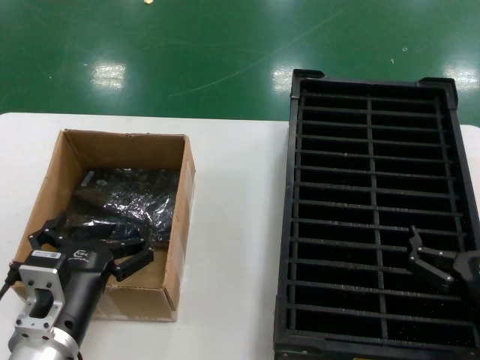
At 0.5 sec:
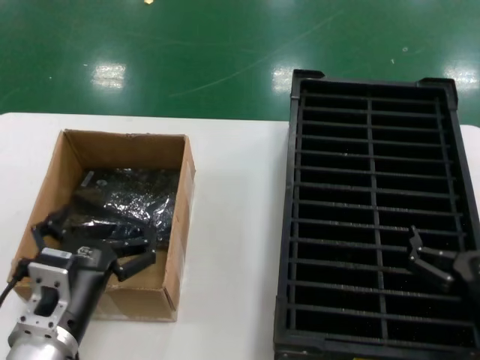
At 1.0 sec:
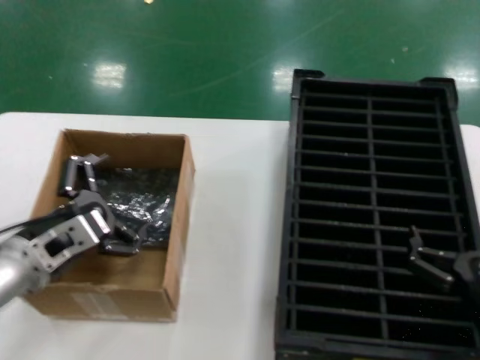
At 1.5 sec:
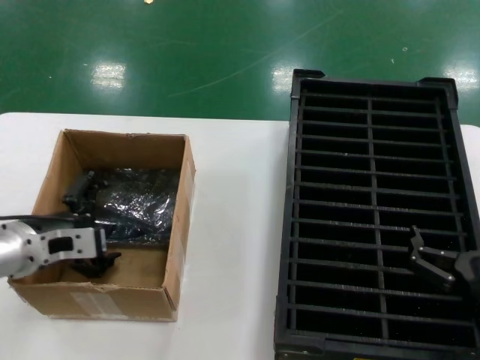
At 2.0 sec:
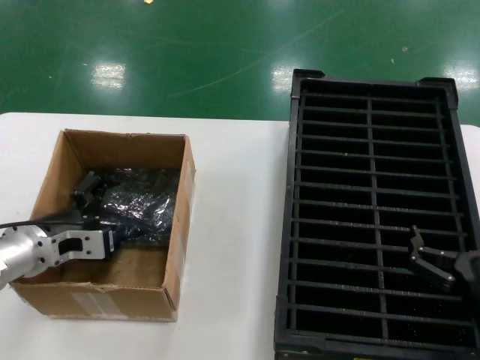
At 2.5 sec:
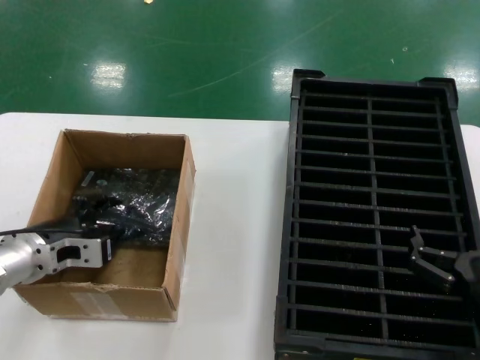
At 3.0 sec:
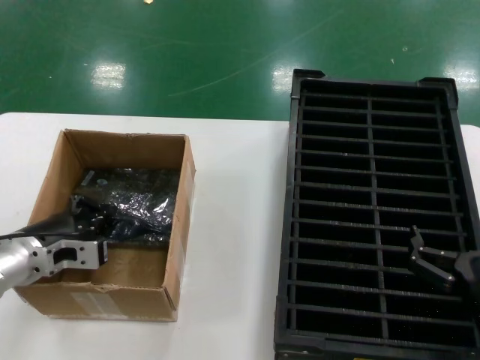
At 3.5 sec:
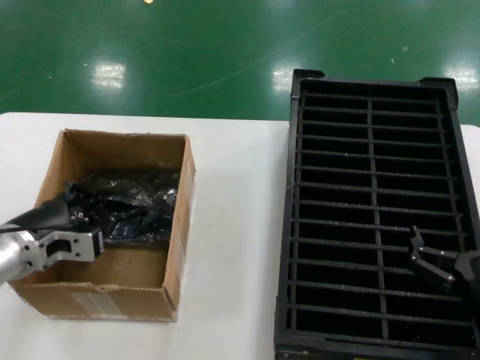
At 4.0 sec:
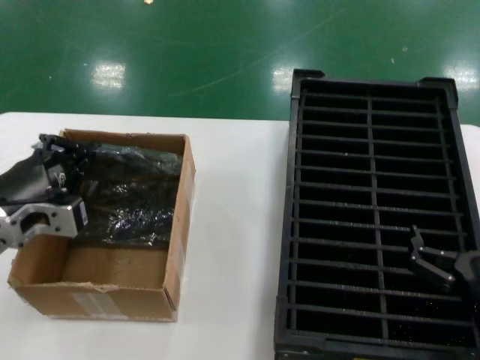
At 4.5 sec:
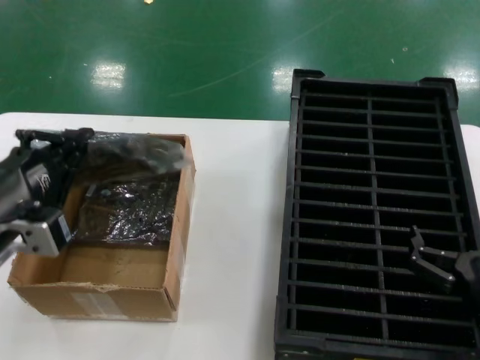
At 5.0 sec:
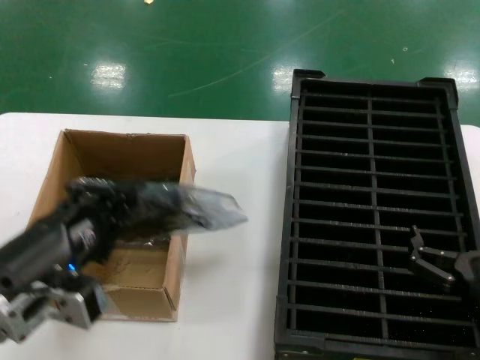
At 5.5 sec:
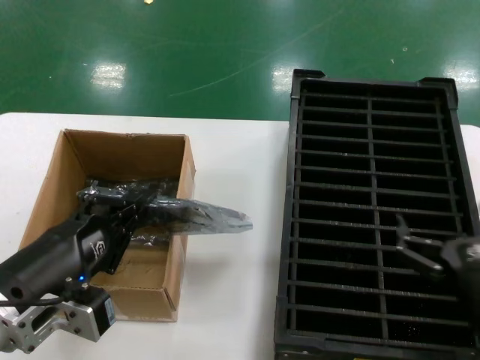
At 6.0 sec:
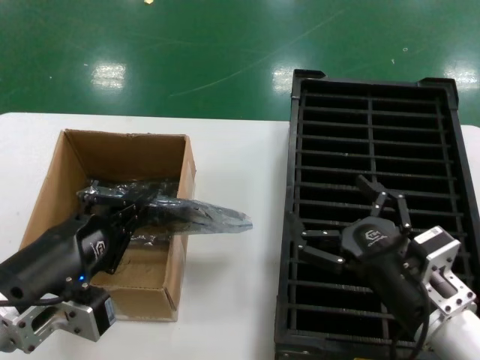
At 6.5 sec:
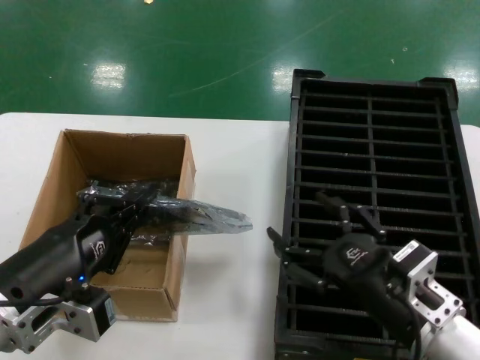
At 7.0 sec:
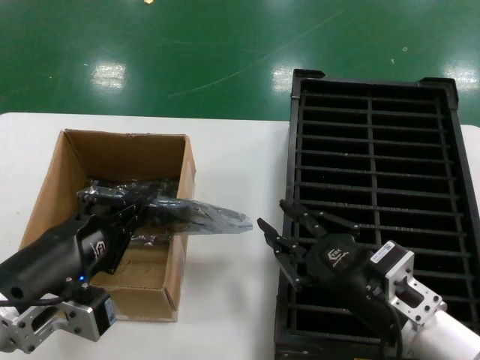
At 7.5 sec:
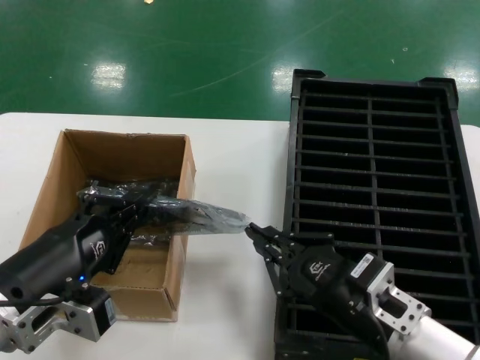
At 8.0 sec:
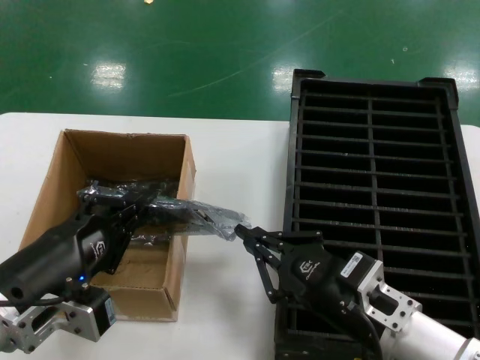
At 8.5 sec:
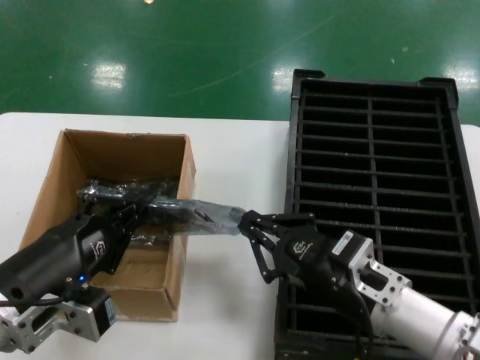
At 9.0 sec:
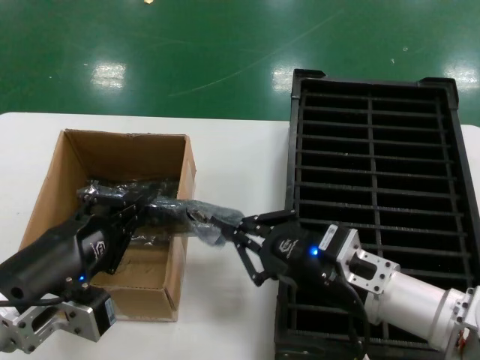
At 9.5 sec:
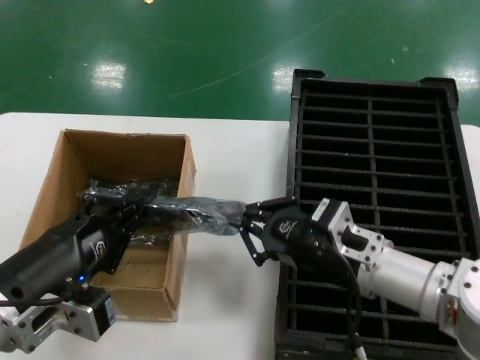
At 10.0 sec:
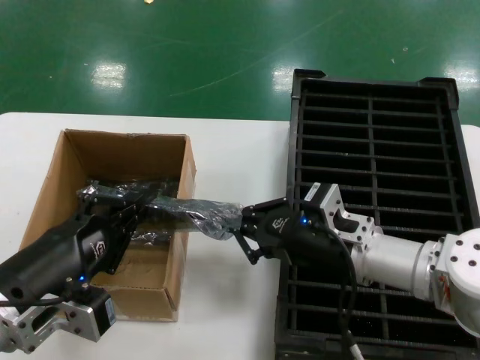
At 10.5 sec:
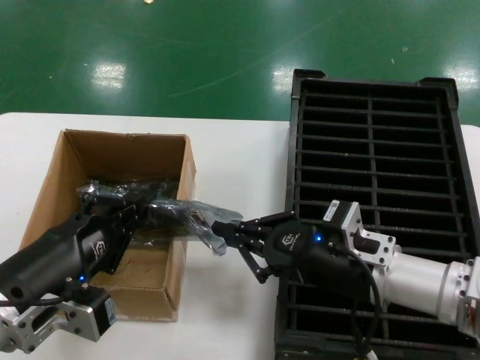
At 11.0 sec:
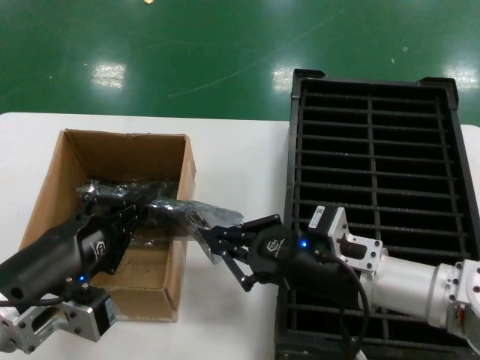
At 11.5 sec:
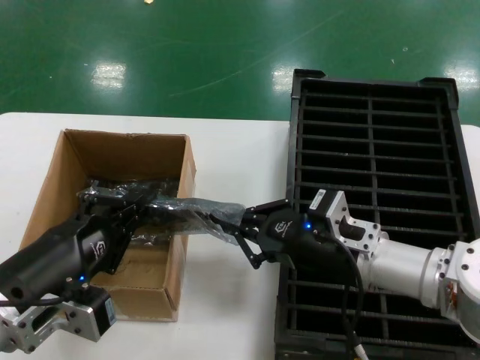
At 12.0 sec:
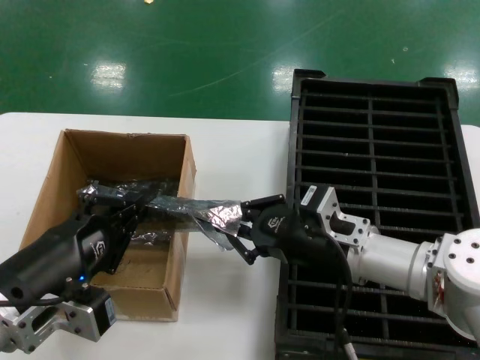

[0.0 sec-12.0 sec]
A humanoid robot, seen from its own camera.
Task of the whole recording: take out graphics card from box remove packaging put into black container.
Step, 0.0 sec to 3.0 sec: Grasp the bag.
Step, 3.5 sec to 5.0 sec: Lift the bag.
0.0 sec to 2.0 sec: The left hand goes some 20 cm forward and to the left.
2.0 sec to 4.0 sec: The left hand heads upward and backward, covering roughly 10 cm.
4.0 sec to 6.0 sec: The right hand heads to the left, covering approximately 5 cm. Meanwhile the left hand moves backward and to the right, some 15 cm.
8.0 sec to 10.0 sec: The right hand moves forward, roughly 10 cm.
10.0 sec to 12.0 sec: The hands make only small movements.

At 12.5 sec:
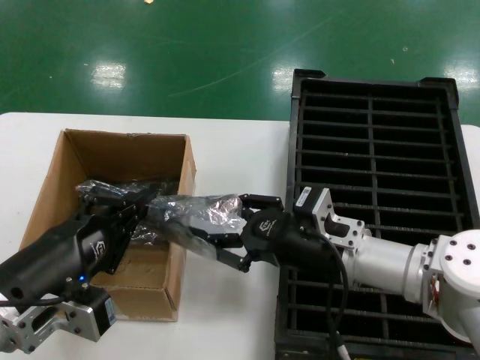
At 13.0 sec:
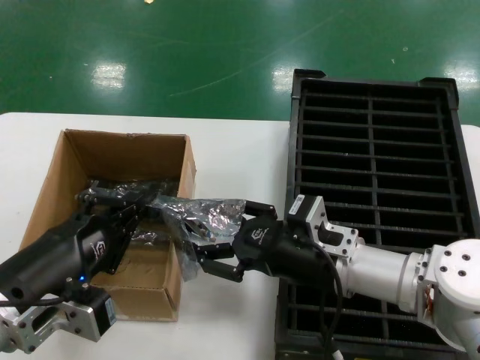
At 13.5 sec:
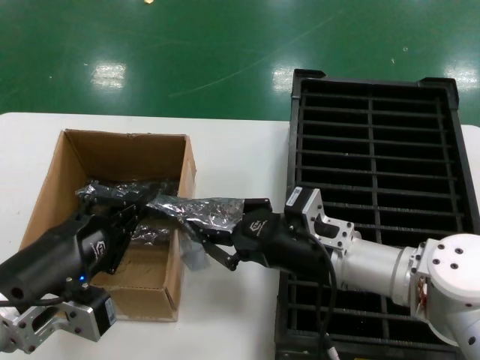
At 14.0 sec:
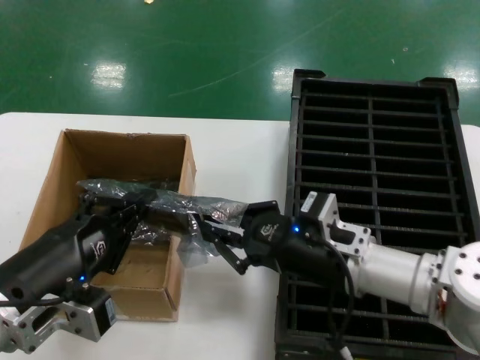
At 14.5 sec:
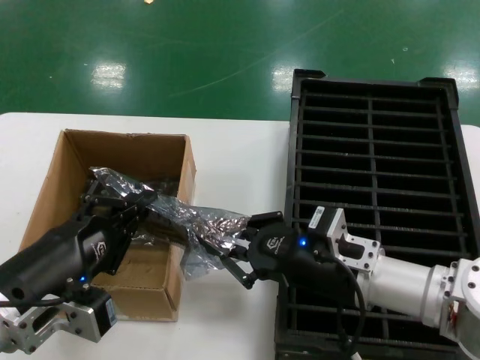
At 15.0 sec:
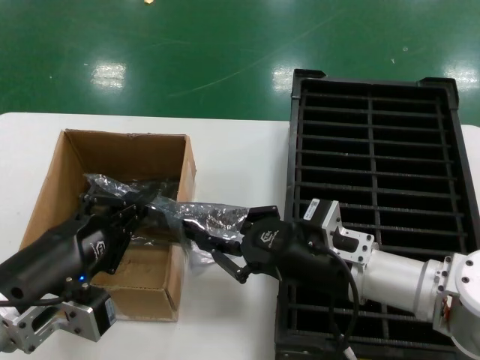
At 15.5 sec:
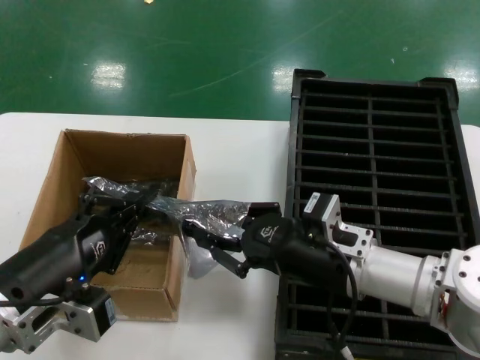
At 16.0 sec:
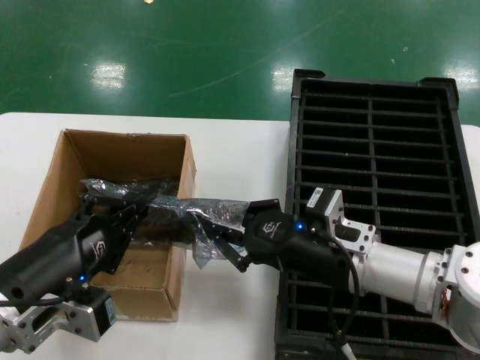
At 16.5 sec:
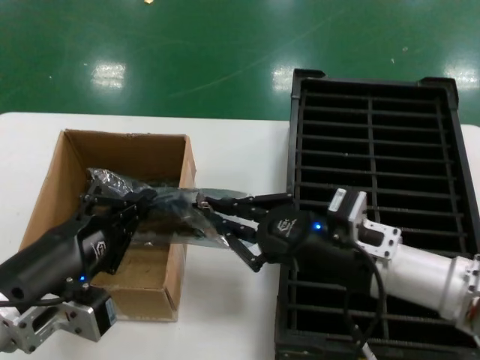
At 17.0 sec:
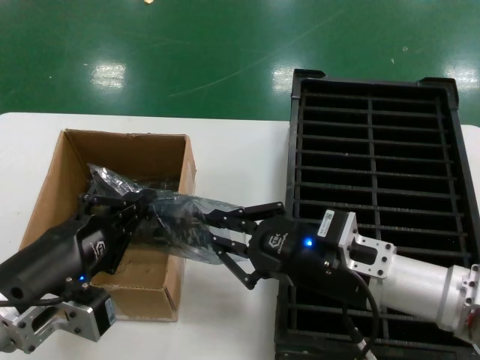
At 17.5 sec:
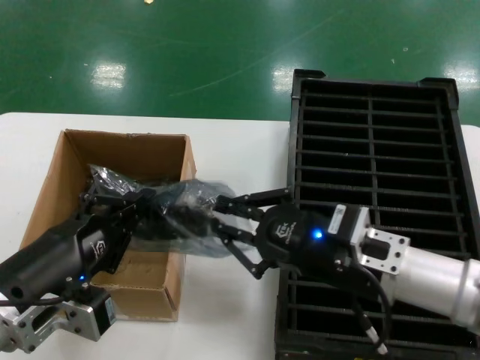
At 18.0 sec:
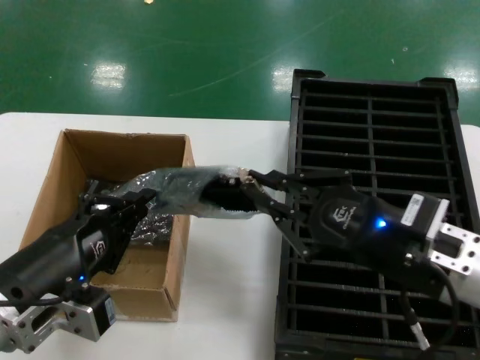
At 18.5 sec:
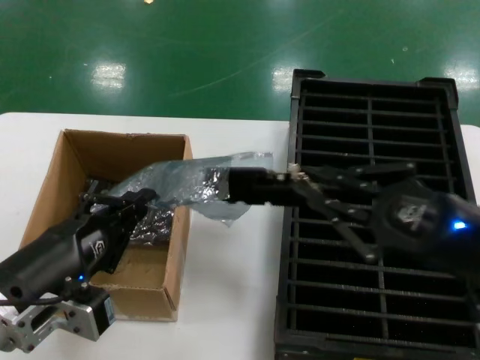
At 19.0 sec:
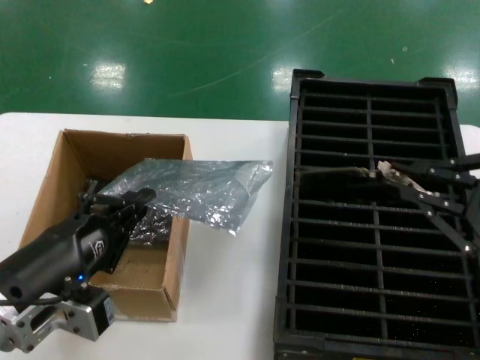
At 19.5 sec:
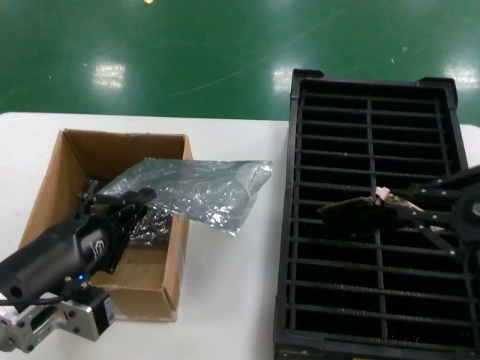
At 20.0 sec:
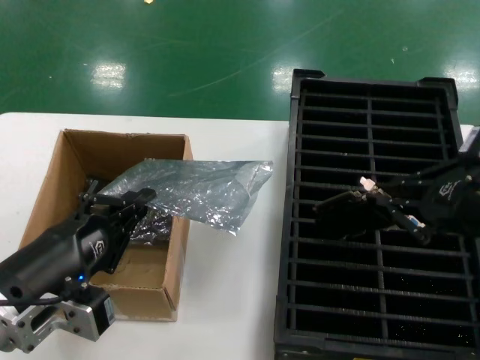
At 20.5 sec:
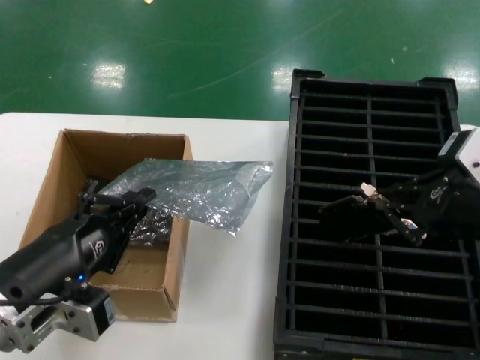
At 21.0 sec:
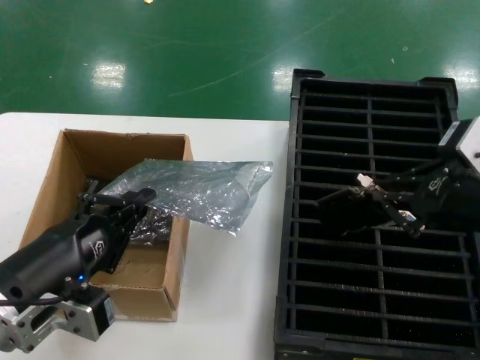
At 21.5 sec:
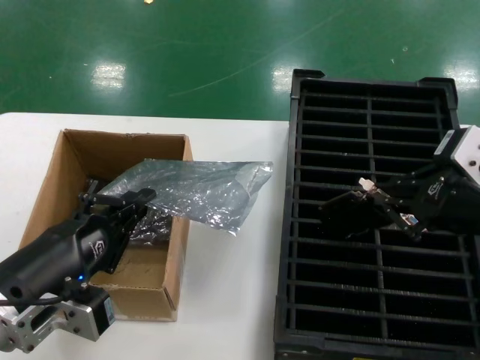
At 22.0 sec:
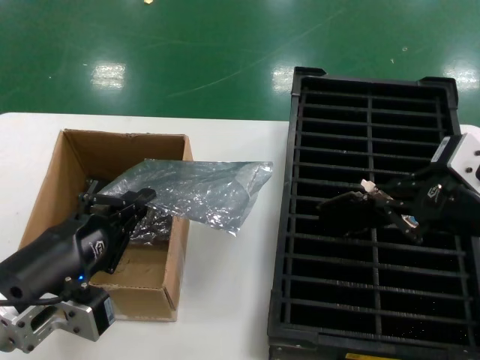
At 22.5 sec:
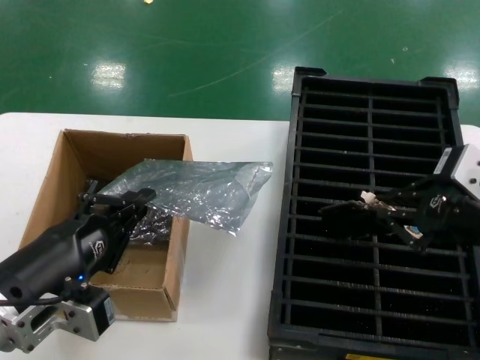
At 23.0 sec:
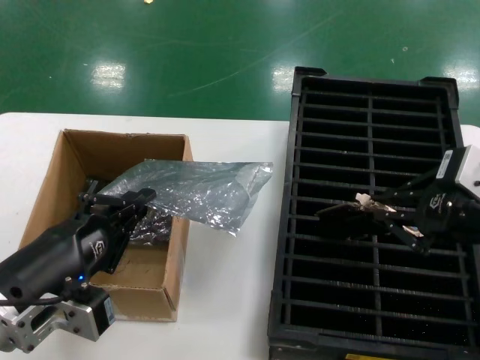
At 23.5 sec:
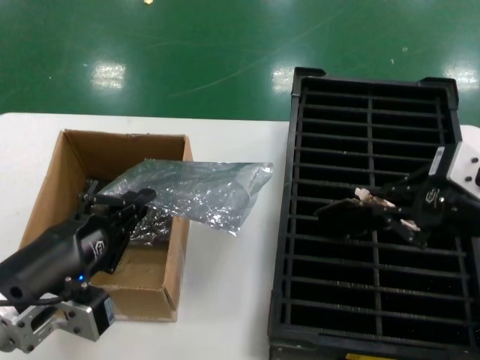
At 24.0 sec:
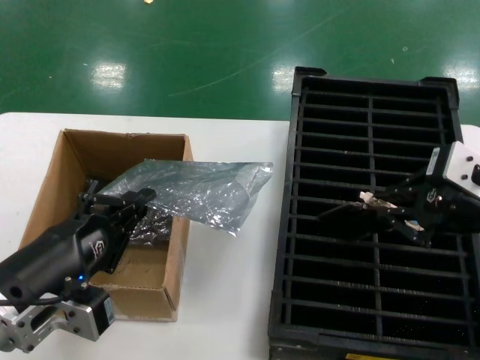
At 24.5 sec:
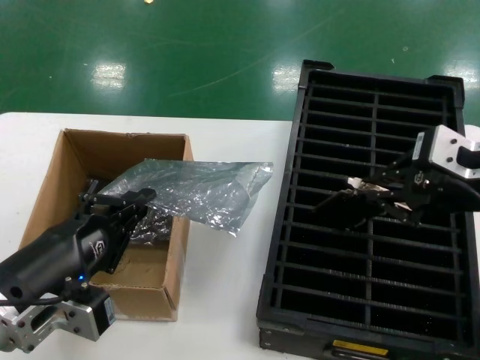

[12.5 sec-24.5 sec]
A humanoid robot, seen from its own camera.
Task of the whole recording: take out graphics card from box remove packaging put into black container.
Step, 12.5 sec to 18.5 sec: Take out the hard disk of the bag.
12.5 sec to 16.5 sec: The hands stay close to where they were, moving slightly.
16.5 sec to 18.5 sec: The right hand shifts some 15 cm to the right, backward and upward.
18.5 sec to 20.5 sec: The right hand shifts some 10 cm upward, and moves about 5 cm to the right and comes back.
20.5 sec to 22.5 sec: The hands move only a little.
22.5 sec to 24.5 sec: The right hand goes roughly 5 cm forward.

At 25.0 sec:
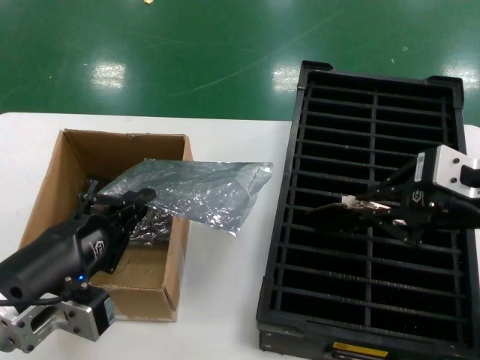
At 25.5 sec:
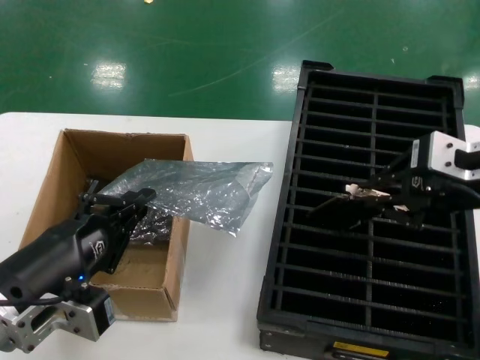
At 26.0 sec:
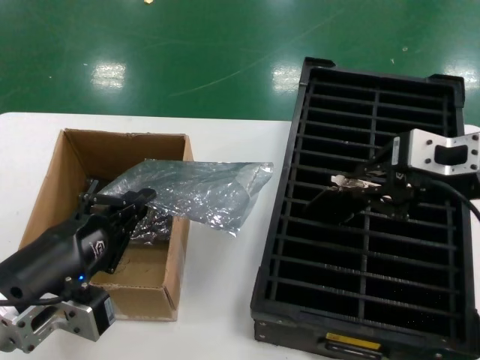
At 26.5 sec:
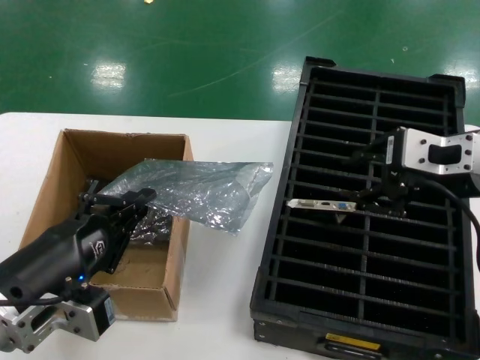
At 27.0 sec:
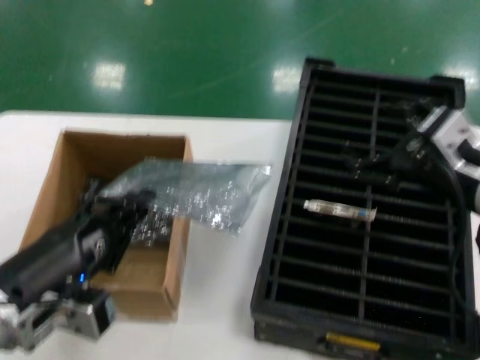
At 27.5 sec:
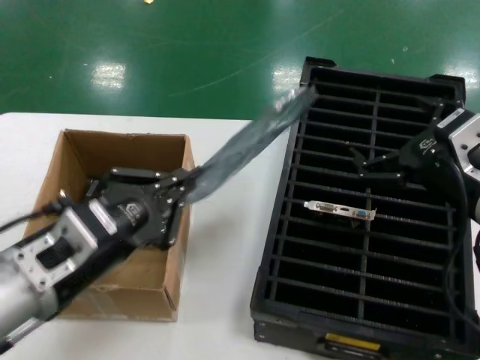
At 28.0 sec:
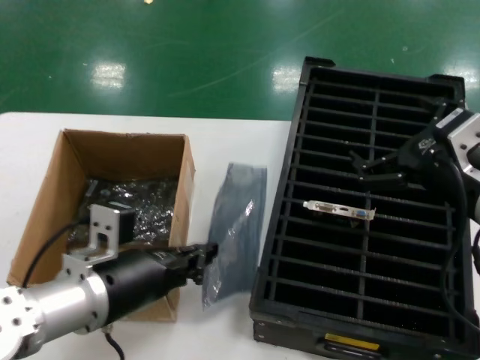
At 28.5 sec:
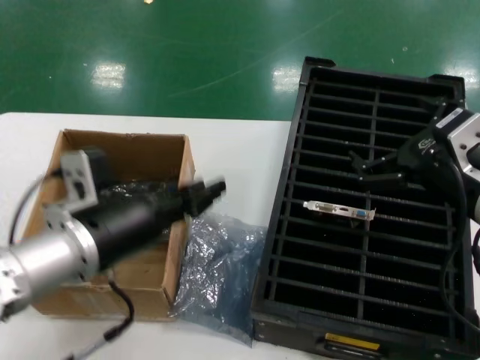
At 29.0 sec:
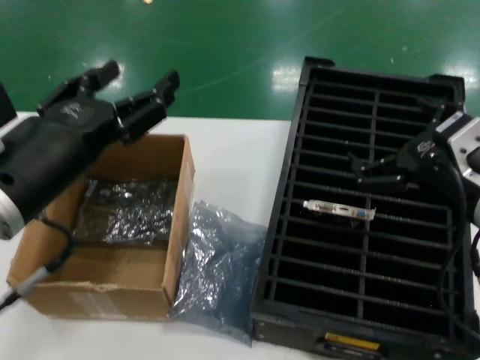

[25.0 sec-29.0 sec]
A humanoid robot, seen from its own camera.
Task of the whole recording: take out graphics card from box remove packaging put into black container.
Step, 25.0 sec to 27.0 sec: Place the hard disk in the hard disk enclosure.
27.0 sec to 29.0 sec: The left hand shifts approximately 10 cm upward.
